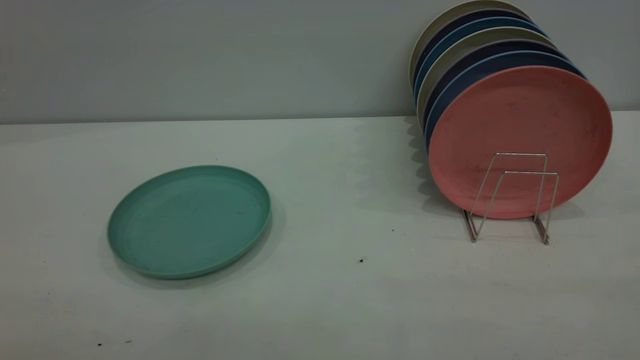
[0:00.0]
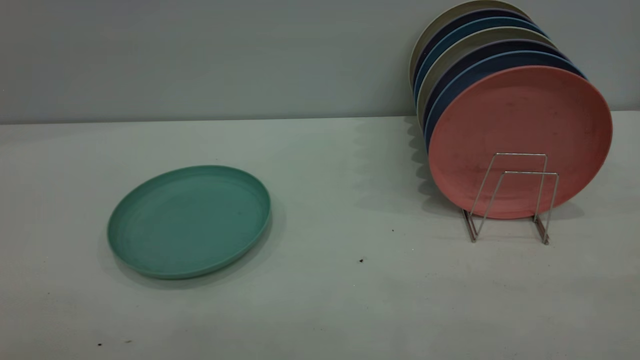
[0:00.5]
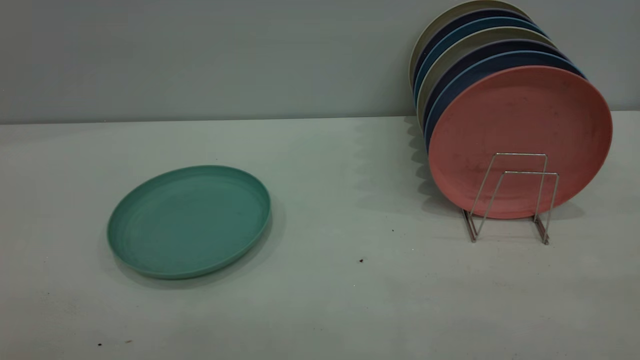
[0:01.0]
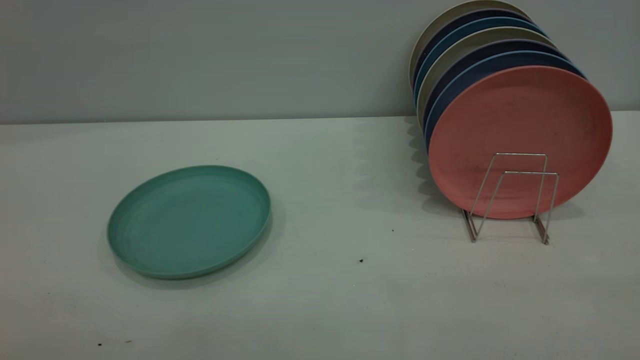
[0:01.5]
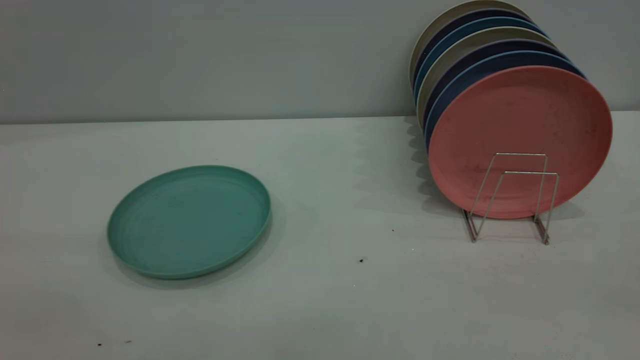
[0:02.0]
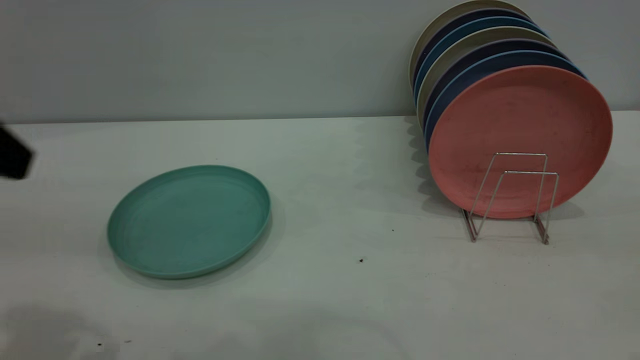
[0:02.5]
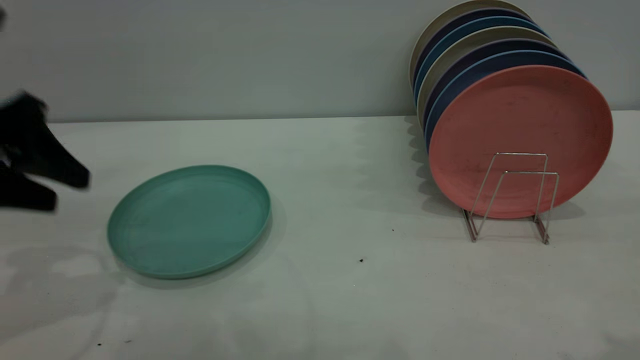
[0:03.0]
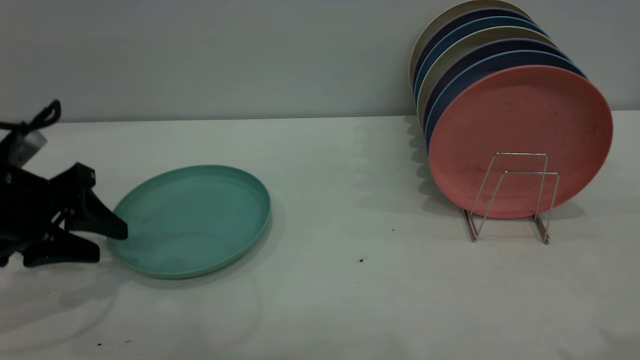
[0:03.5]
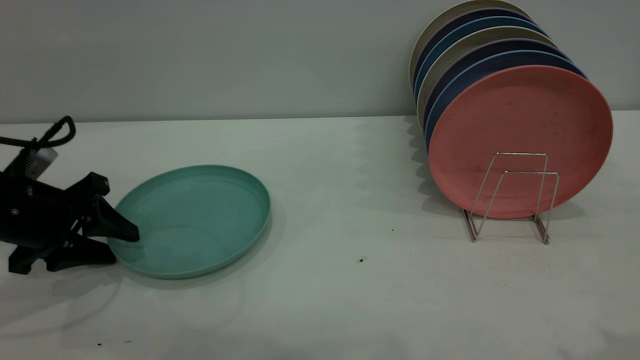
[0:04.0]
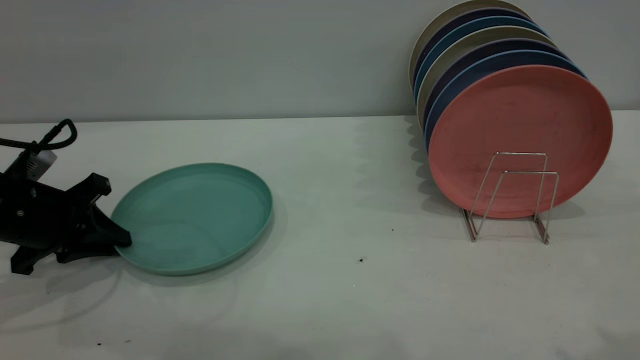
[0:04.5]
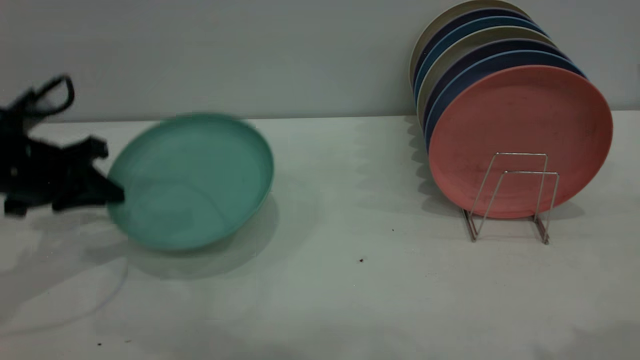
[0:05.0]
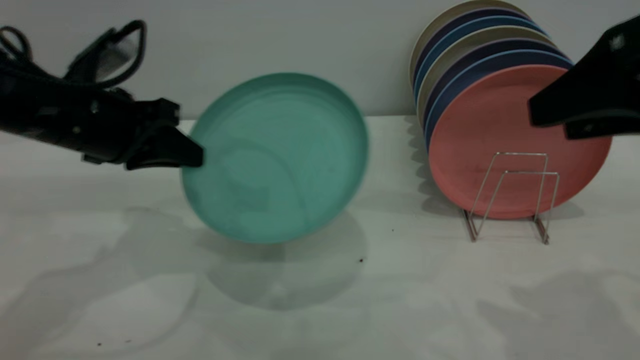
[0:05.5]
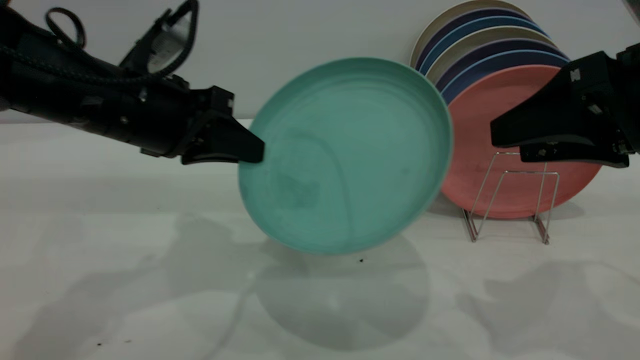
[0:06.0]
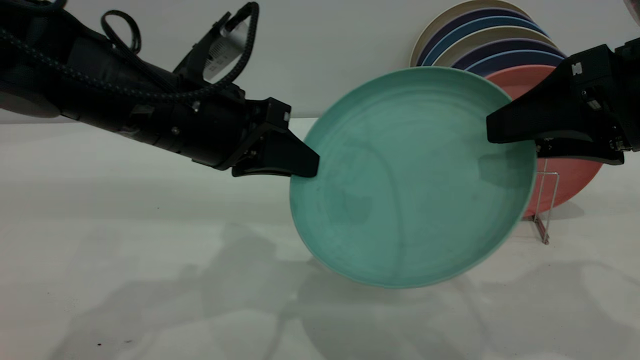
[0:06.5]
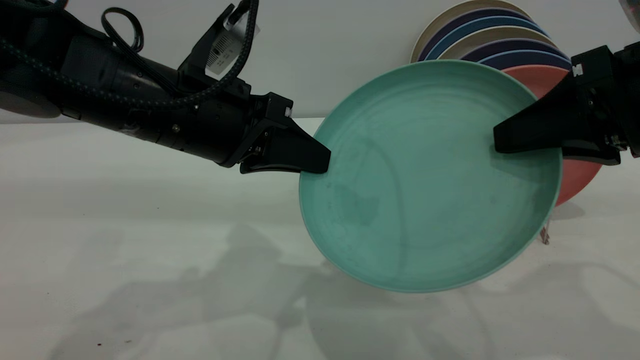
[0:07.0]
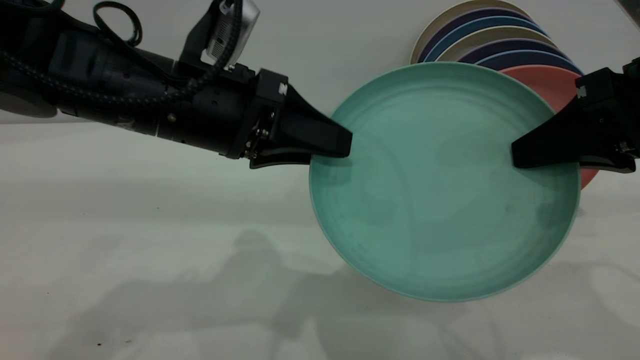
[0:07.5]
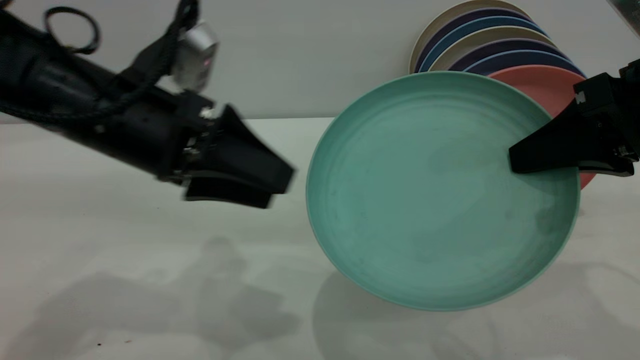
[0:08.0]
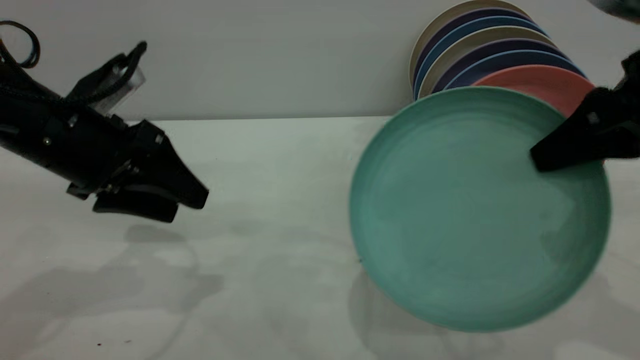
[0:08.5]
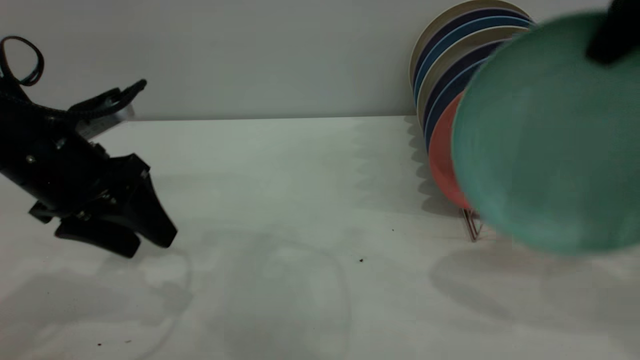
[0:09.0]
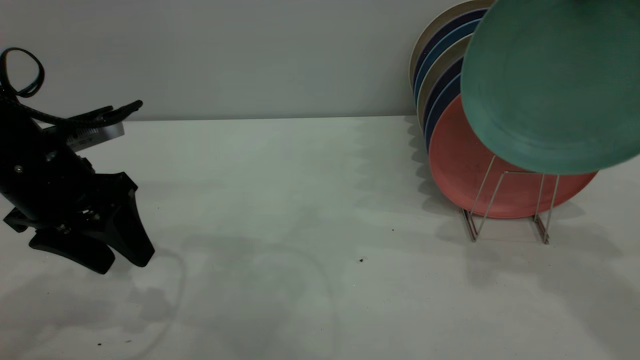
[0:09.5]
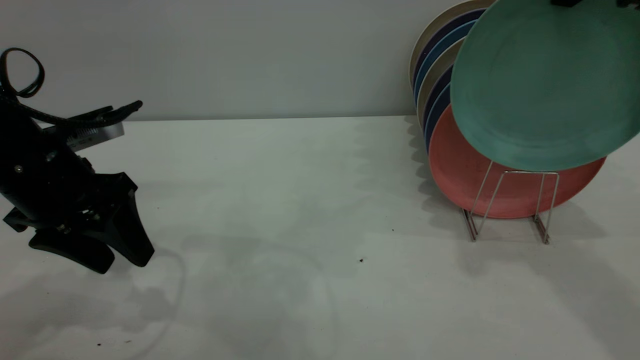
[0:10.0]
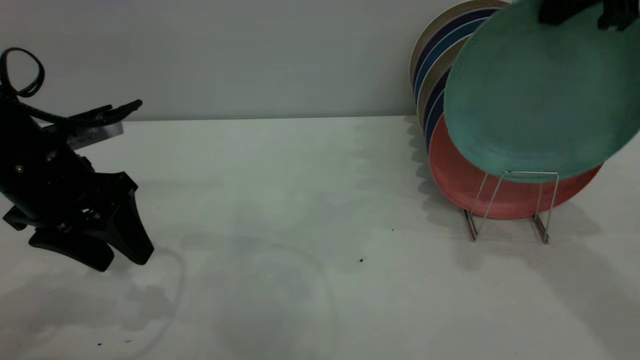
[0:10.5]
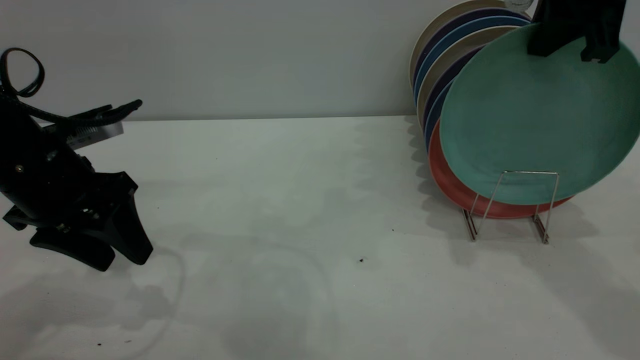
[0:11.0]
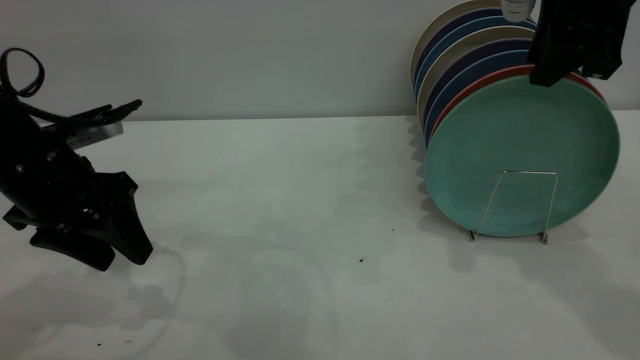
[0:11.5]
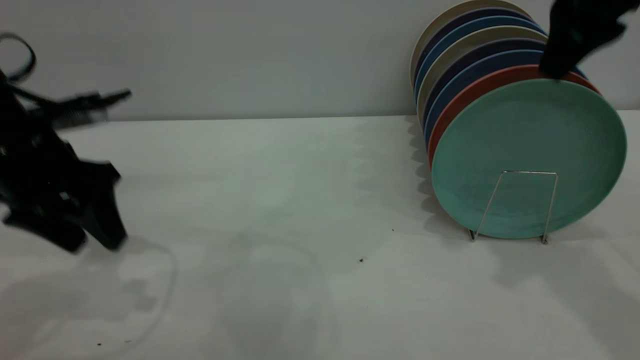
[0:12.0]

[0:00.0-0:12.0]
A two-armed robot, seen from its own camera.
Task of the whole recording: the left gripper grasp the green plate, the left gripper pass the green plate to the right gripper, and the right gripper place the green plate on the plate rack.
Step, 0.0 to 4.5 s: Pick up the plate with the left gripper.
Step, 5.0 to 7.5 s: Pass the plate from the left gripper to the right gripper.
2.0 to 4.0 s: The left gripper shifts roughly 40 cm downward and forward.
4.0 to 6.0 s: The right gripper moves downward and forward, about 15 cm. Meanwhile the left gripper is displaced to the right and upward by about 20 cm, and closes.
6.0 to 8.0 s: The left gripper opens. Meanwhile the right gripper closes its fingers.
8.0 to 10.0 s: The left gripper is displaced to the left by approximately 10 cm. Meanwhile the right gripper shifts roughly 15 cm upward and forward.
10.0 to 12.0 s: The right gripper opens.

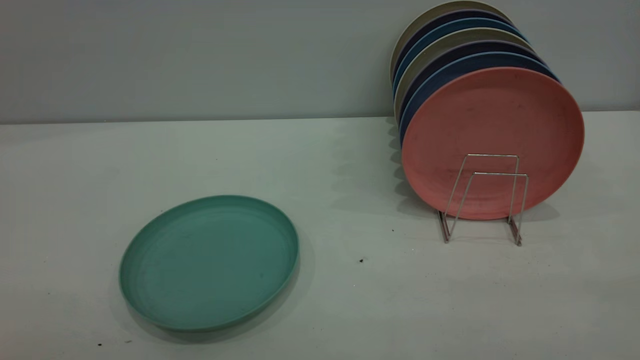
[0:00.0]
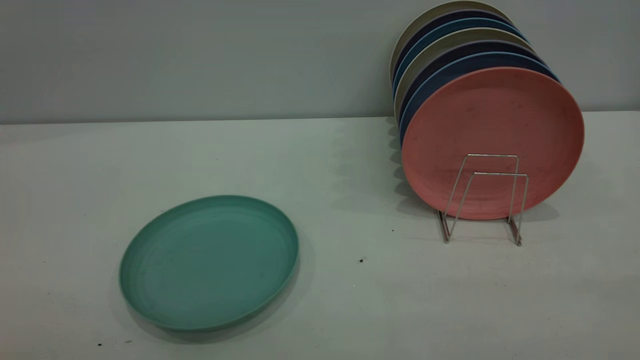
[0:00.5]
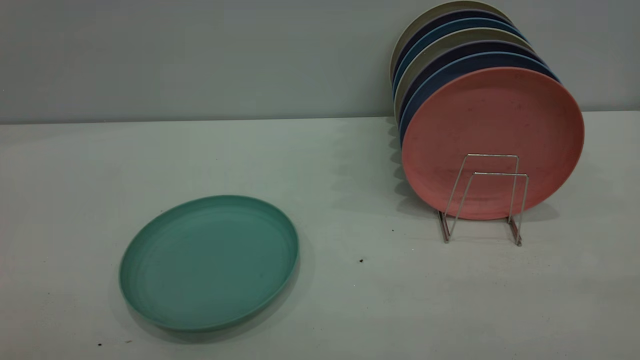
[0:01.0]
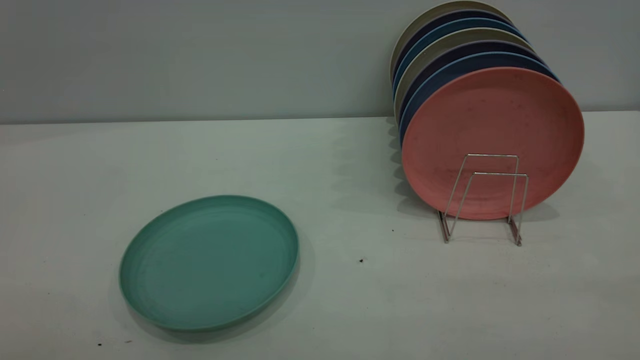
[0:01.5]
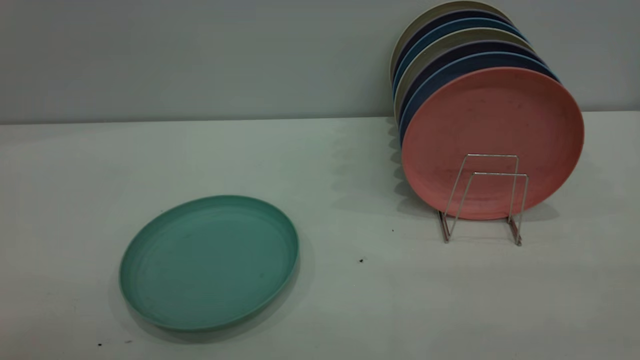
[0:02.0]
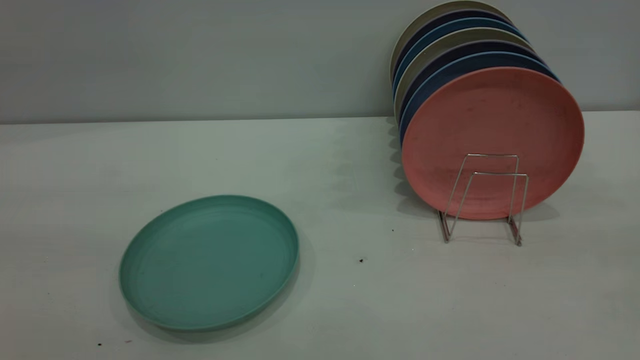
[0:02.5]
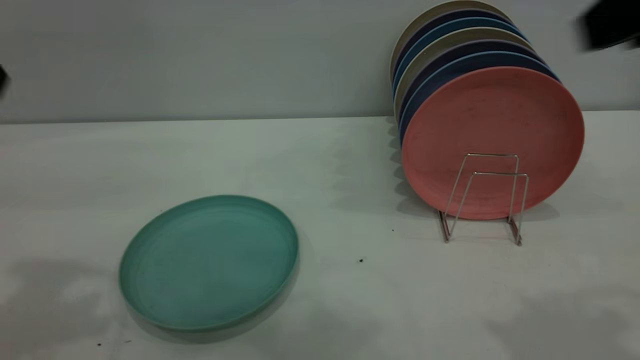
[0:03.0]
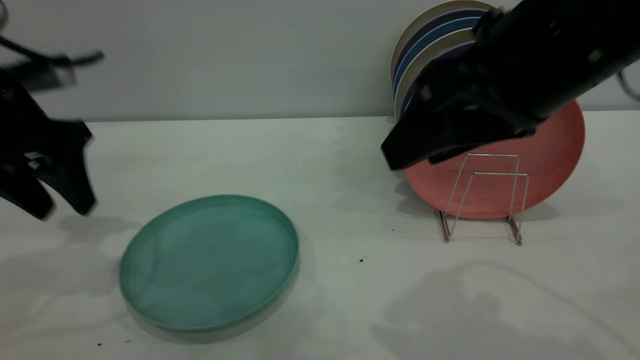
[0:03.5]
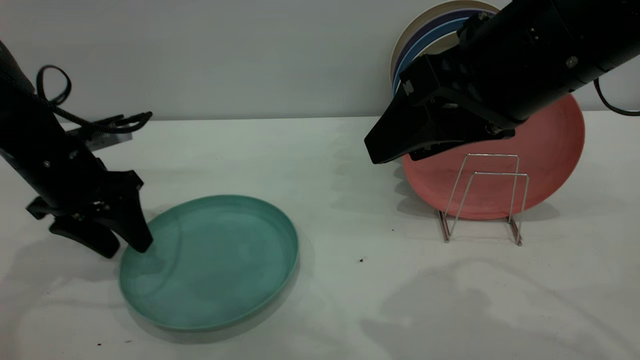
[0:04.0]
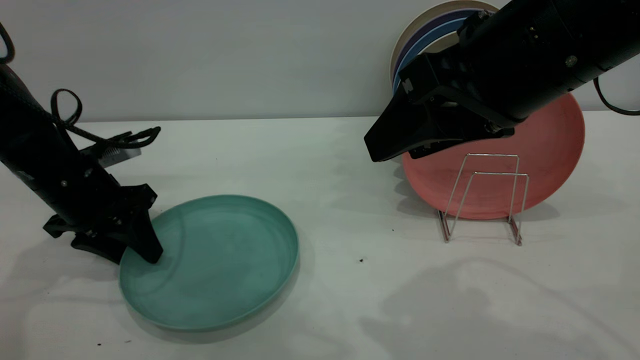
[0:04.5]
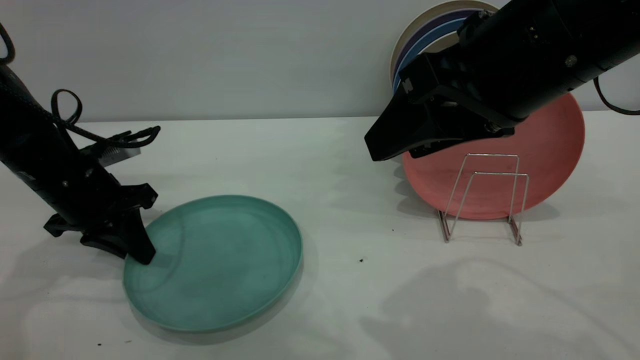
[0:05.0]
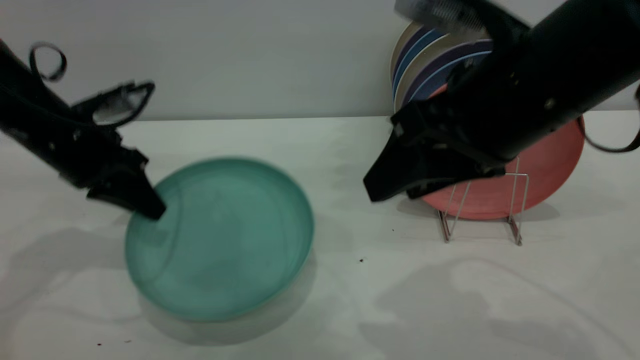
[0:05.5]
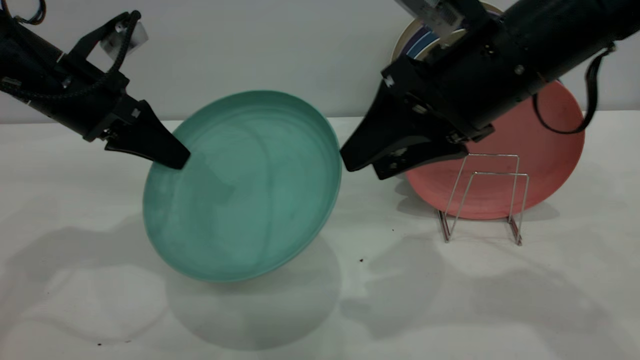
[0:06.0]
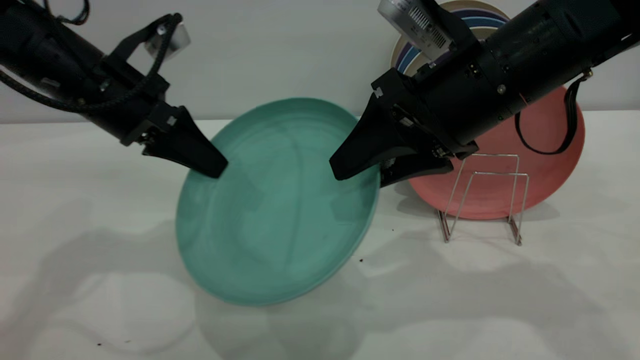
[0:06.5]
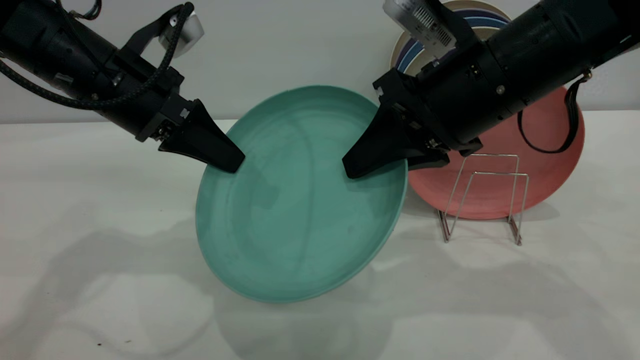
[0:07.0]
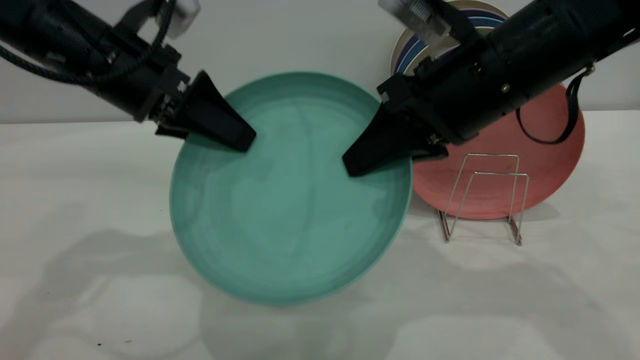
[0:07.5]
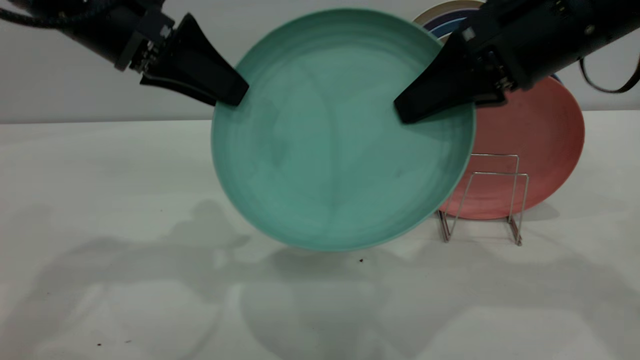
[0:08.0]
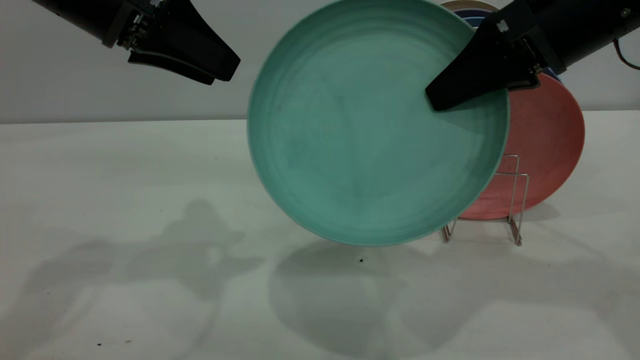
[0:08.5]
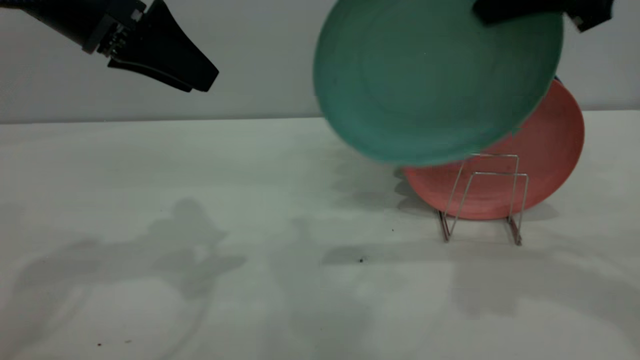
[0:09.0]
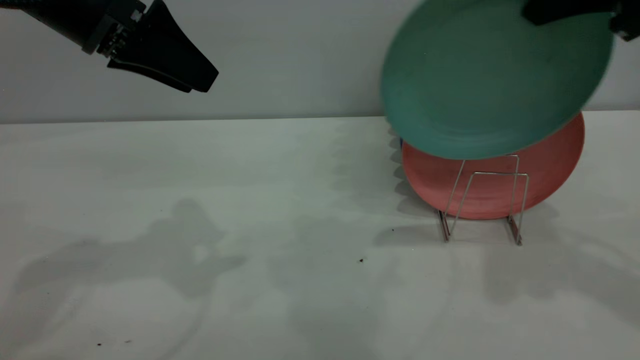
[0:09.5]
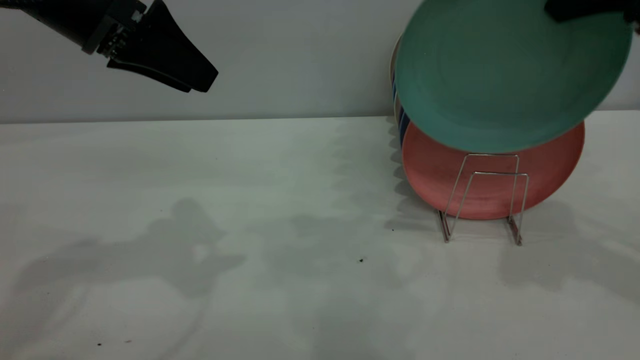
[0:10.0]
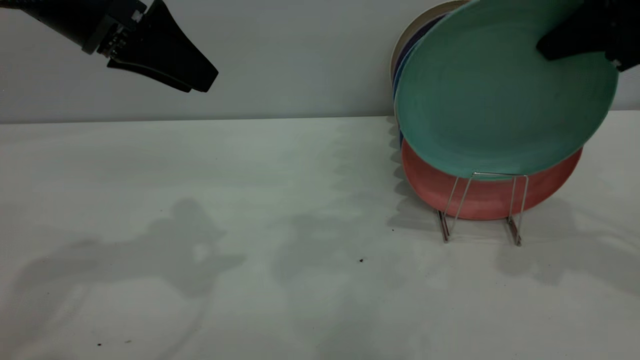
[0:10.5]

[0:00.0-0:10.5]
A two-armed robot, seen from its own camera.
Task of the whole recording: the left gripper grasp the green plate, the left gripper pass the green plate to the right gripper, and the right gripper place the green plate on the plate rack.
Step, 0.0 to 5.0 s: Pick up the plate with the left gripper.
Step, 6.0 to 8.0 s: Pass the plate from the left gripper to the right gripper.
2.0 to 4.0 s: The right gripper moves forward and to the left, some 30 cm, and opens its fingers. The left gripper is displaced forward and downward by some 50 cm.
4.0 to 6.5 s: The left gripper heads to the right and upward, covering roughly 10 cm, and closes. Meanwhile the right gripper goes roughly 10 cm forward and downward.
6.5 to 8.5 s: The right gripper heads to the right and upward, covering approximately 10 cm, and closes up. Meanwhile the left gripper is displaced upward by some 10 cm, and opens up.
8.5 to 10.5 s: The right gripper heads to the right, covering approximately 10 cm.
